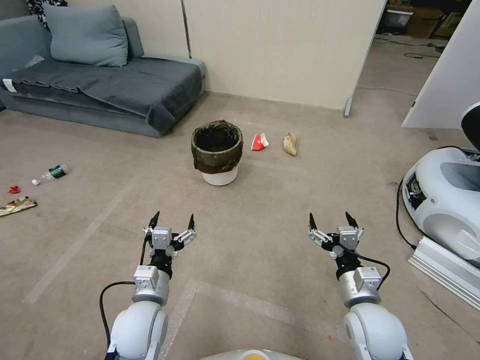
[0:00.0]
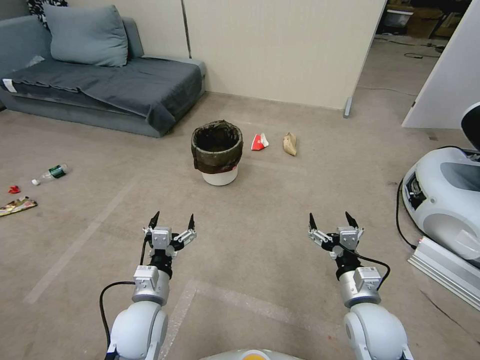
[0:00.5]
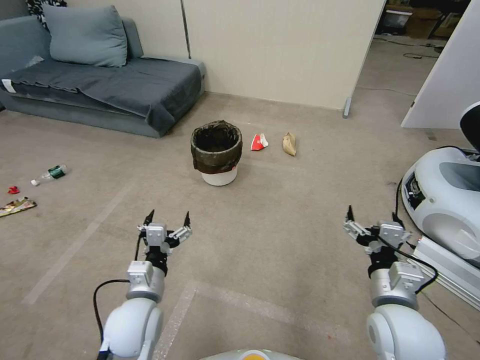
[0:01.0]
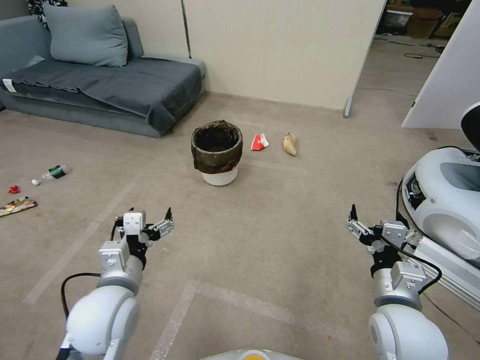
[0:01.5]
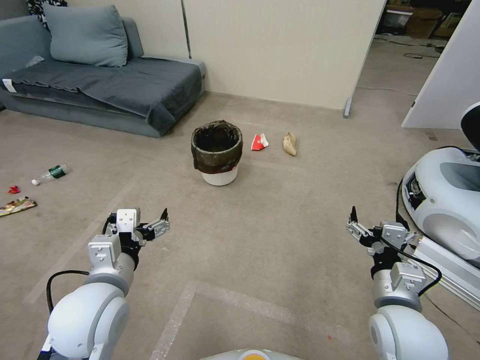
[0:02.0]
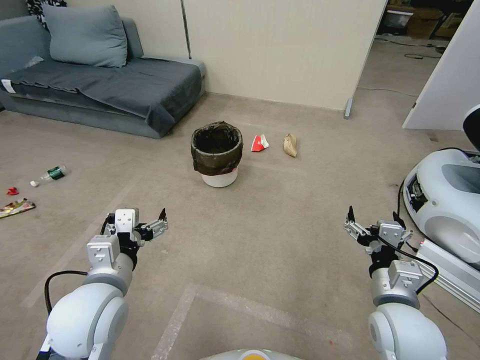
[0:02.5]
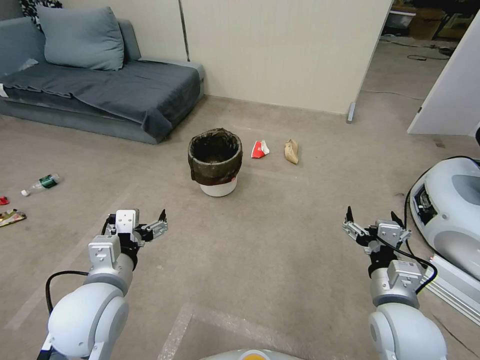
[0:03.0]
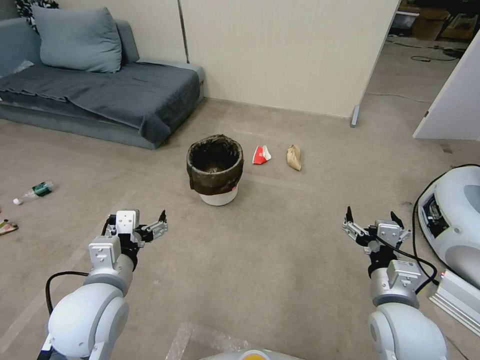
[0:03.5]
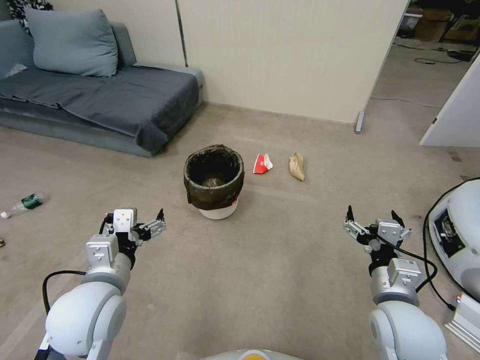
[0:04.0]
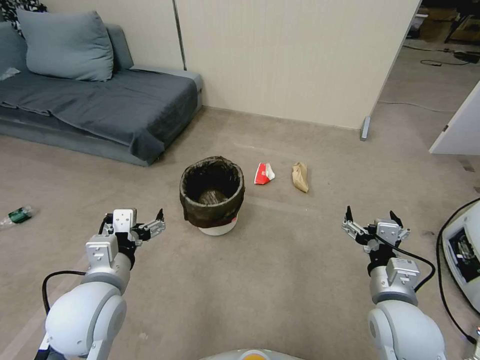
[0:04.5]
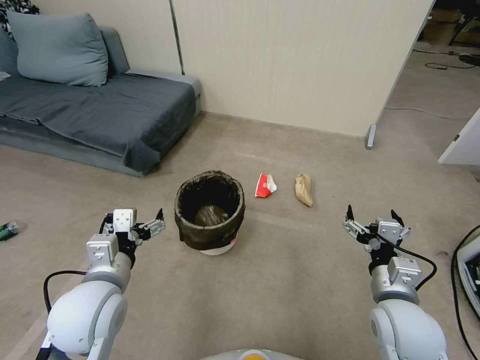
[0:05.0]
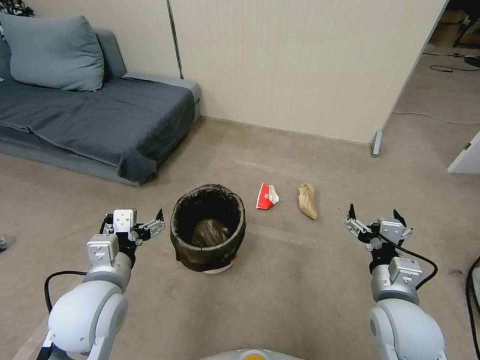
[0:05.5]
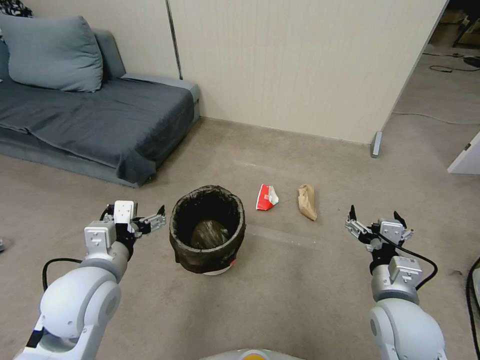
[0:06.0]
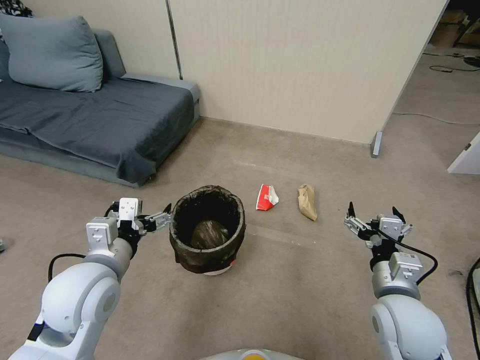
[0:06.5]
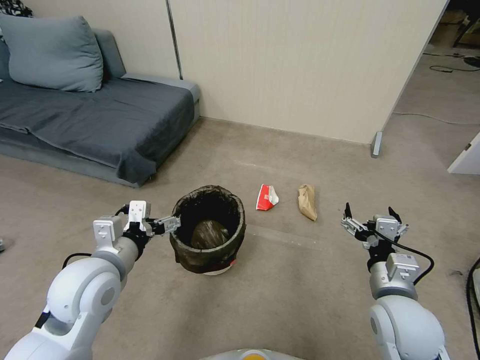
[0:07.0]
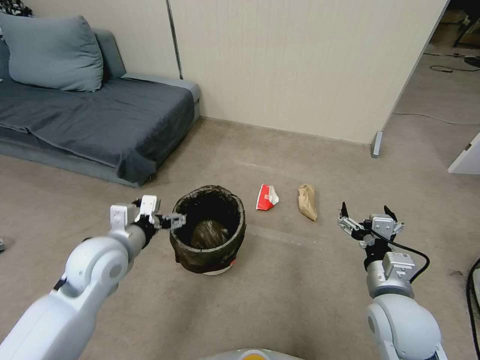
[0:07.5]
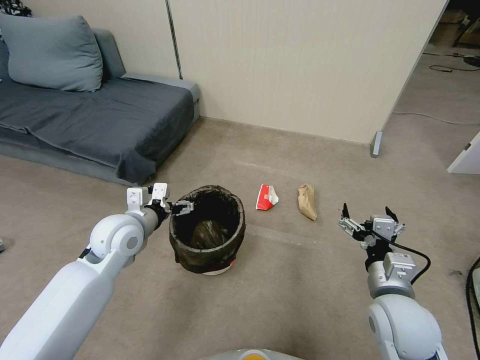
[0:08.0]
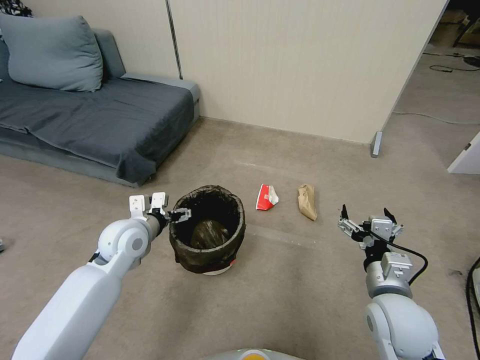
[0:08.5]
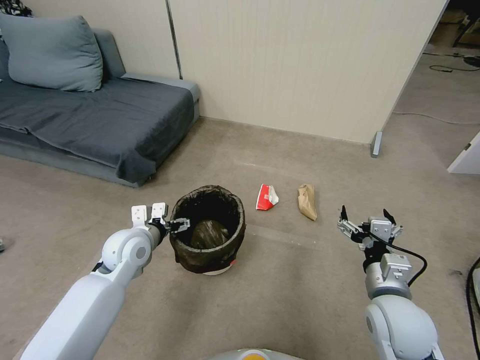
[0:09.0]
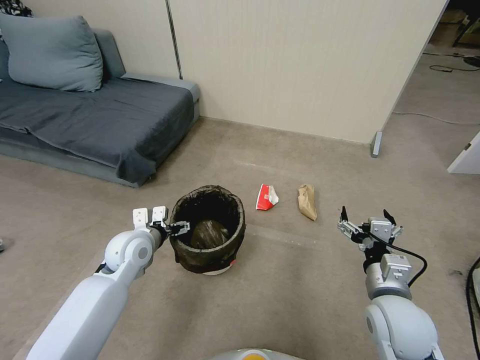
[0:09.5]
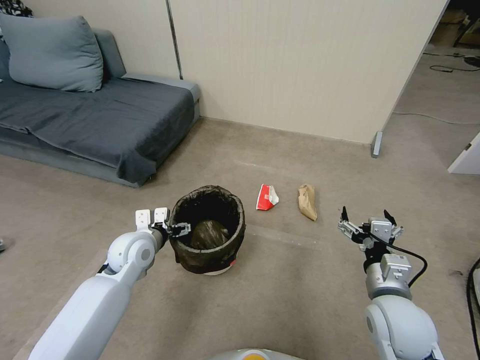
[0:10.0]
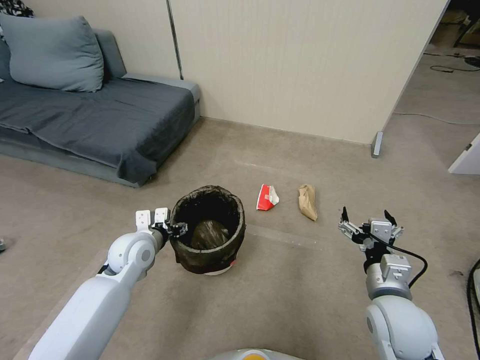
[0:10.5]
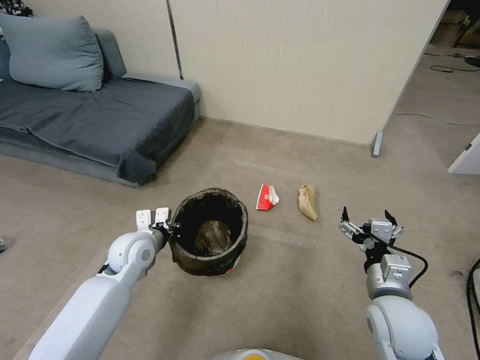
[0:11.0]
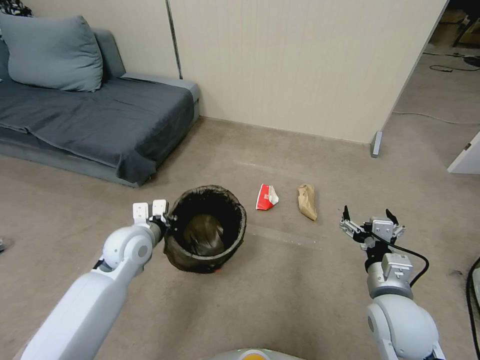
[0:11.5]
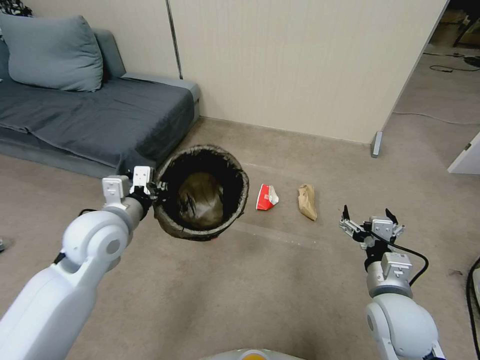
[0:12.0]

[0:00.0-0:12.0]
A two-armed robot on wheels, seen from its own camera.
Task of the whole recording: Pick up the trash bin, then pick up the garbage from the floor and place it into the trash bin.
0:06.0 to 0:08.0: The left gripper goes approximately 10 cm forward.
0:08.0 to 0:10.0: The left gripper is displaced downward by approximately 10 cm.
0:10.0 to 0:12.0: The left gripper is displaced upward by some 15 cm, and closes.

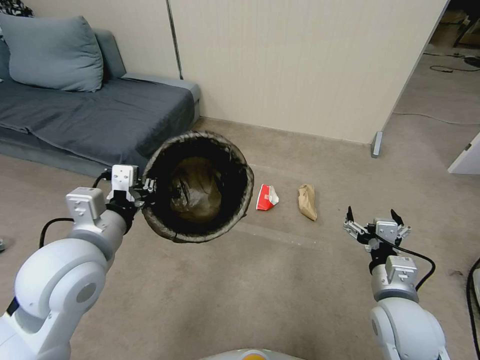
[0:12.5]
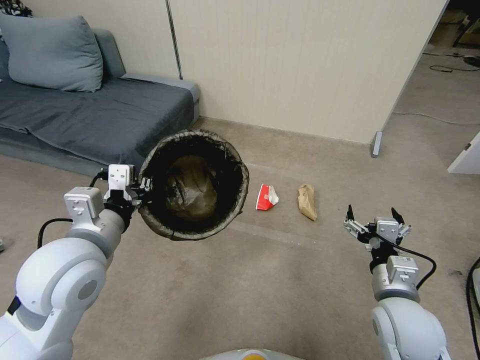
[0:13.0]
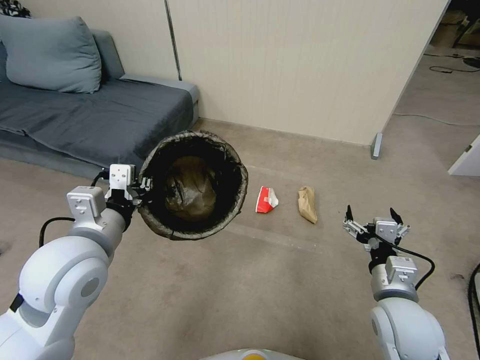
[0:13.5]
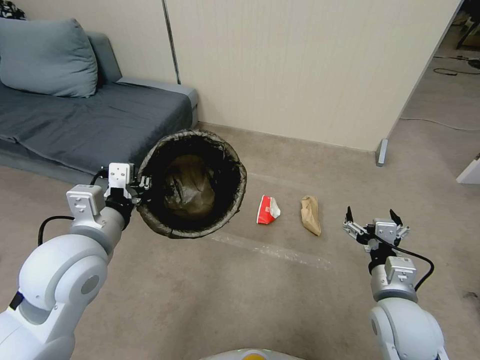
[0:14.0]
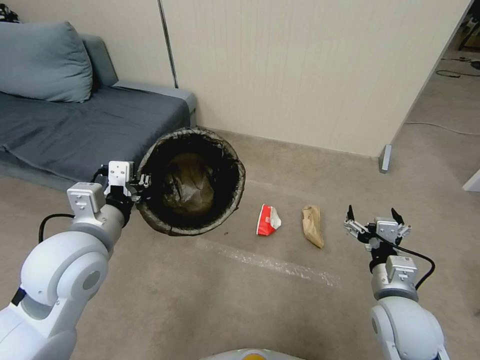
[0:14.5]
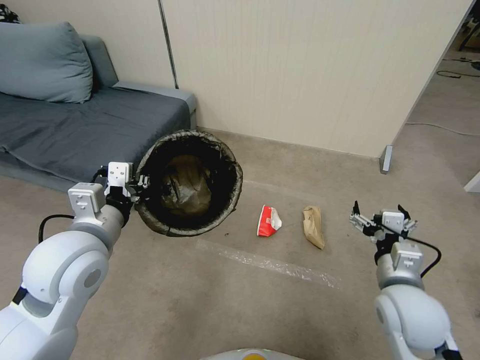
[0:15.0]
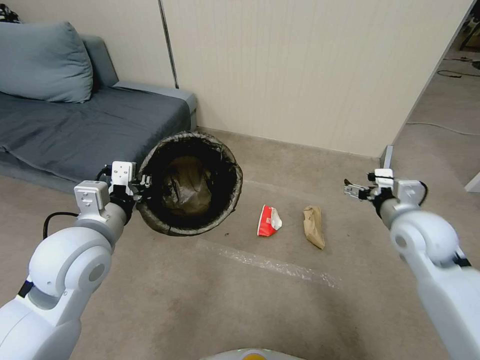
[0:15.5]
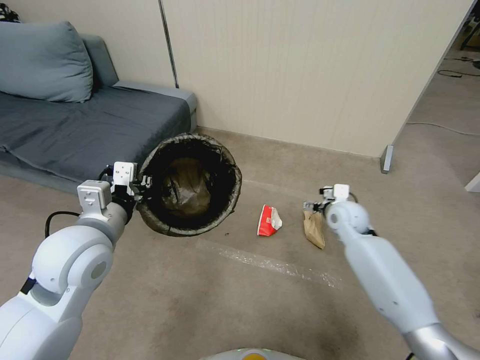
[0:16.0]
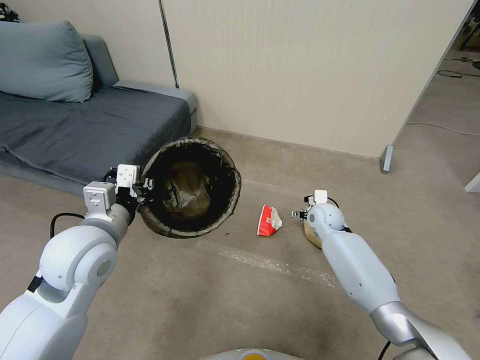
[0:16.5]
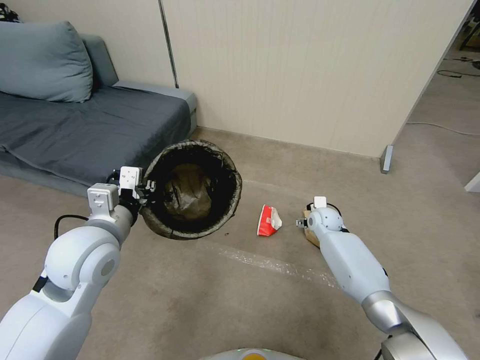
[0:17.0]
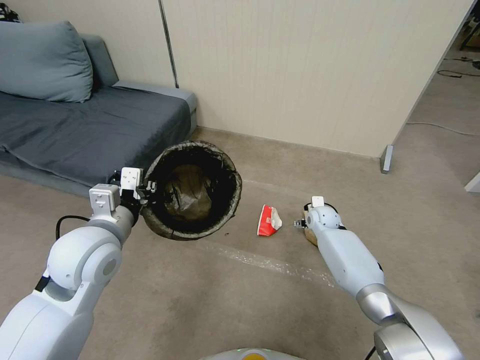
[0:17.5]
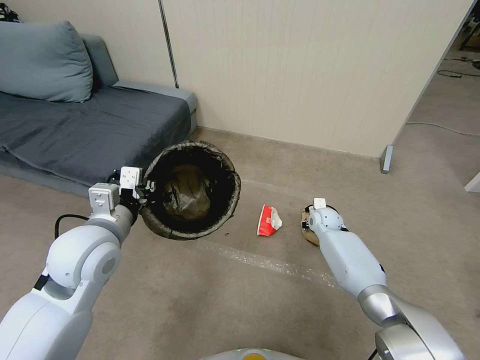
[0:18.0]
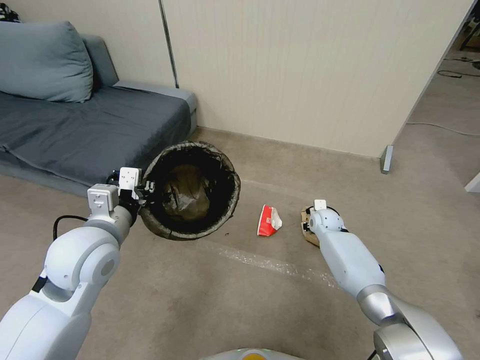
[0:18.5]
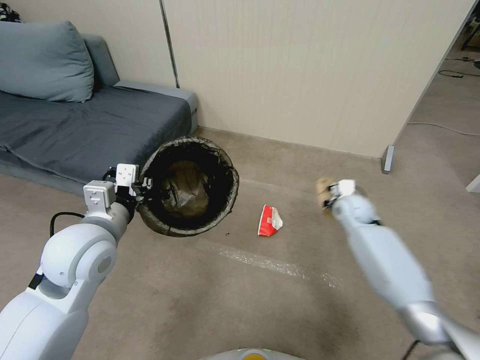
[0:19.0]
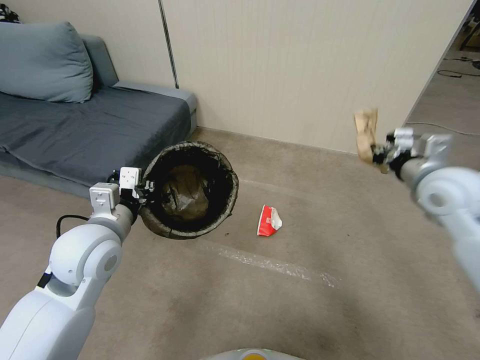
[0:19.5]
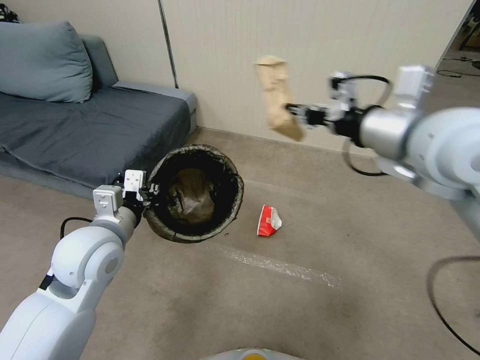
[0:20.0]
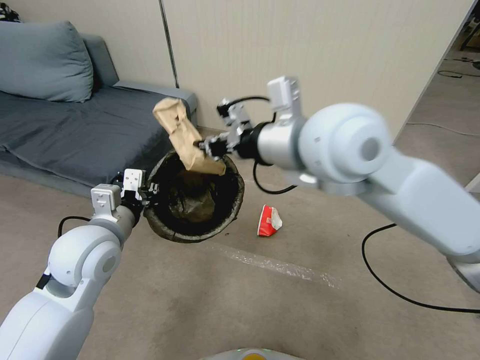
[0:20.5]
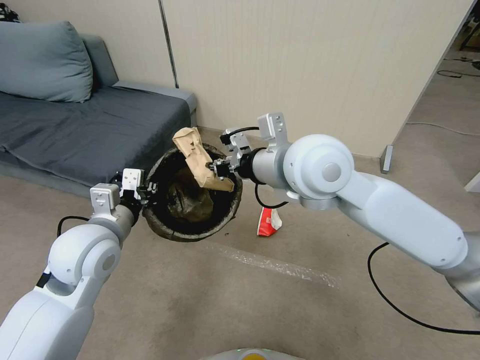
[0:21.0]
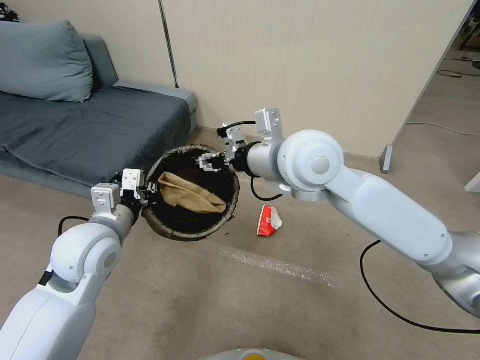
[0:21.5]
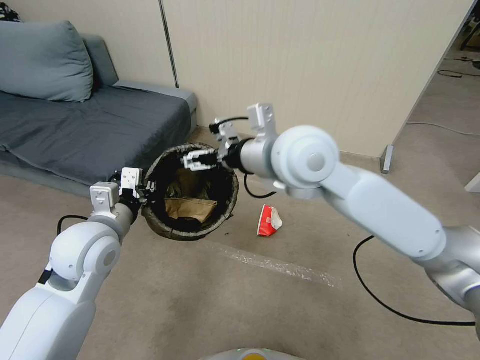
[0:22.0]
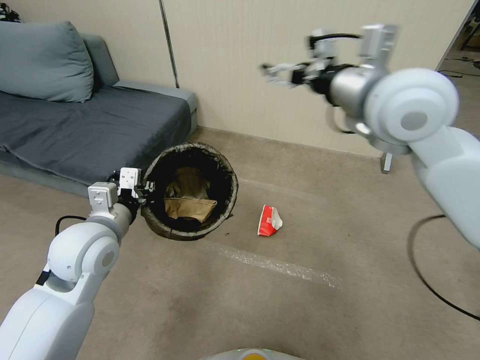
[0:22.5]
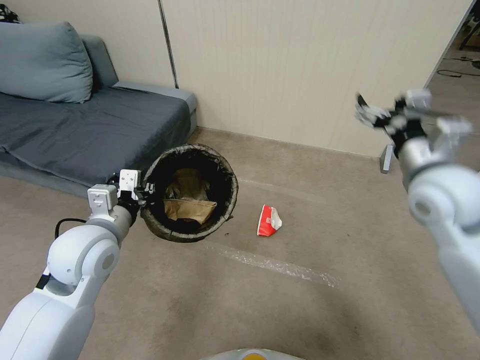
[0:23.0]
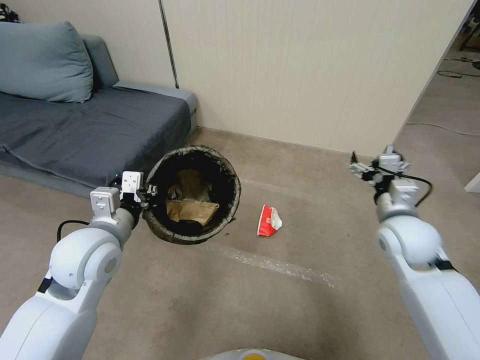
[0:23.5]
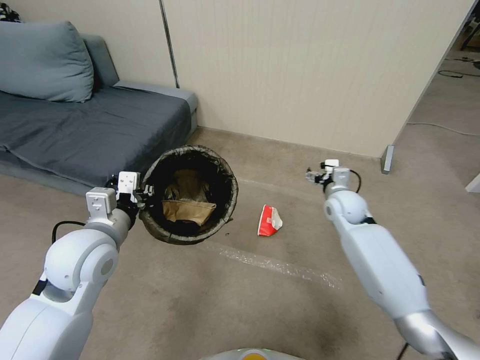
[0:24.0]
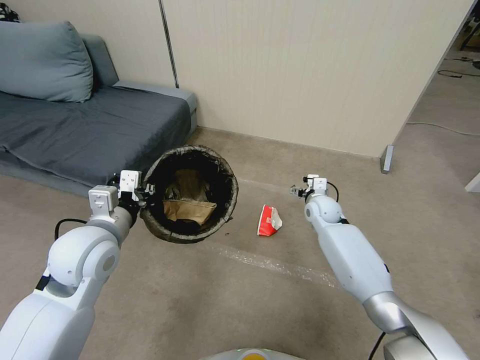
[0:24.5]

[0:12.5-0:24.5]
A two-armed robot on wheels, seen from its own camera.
Task of the whole recording: Pick up the trash bin, then pick up the garbage from the floor and place it into the trash bin.
0:12.5 to 0:14.5: The grippers move only a little.
0:14.5 to 0:16.5: The right gripper is displaced forward by some 30 cm.
0:16.5 to 0:18.5: The right gripper moves downward, roughly 5 cm, and closes its fingers.
0:18.5 to 0:20.5: The right gripper shifts about 50 cm upward.
0:20.5 to 0:22.5: The right gripper moves to the right and forward, approximately 10 cm, and opens its fingers.
0:22.5 to 0:24.5: The right gripper heads downward, covering approximately 40 cm.

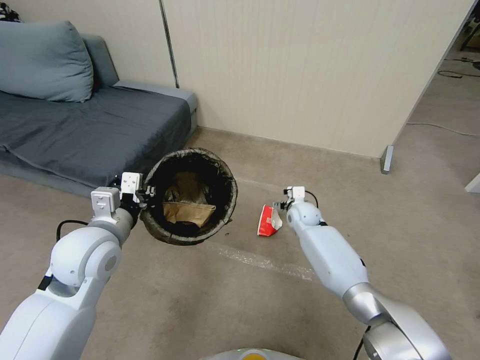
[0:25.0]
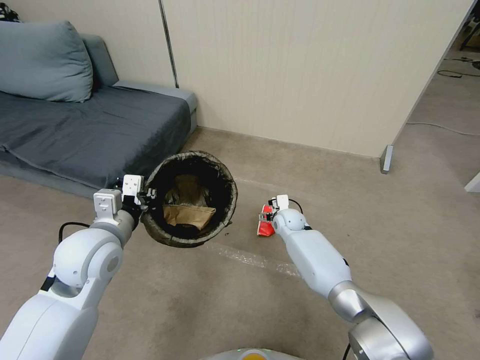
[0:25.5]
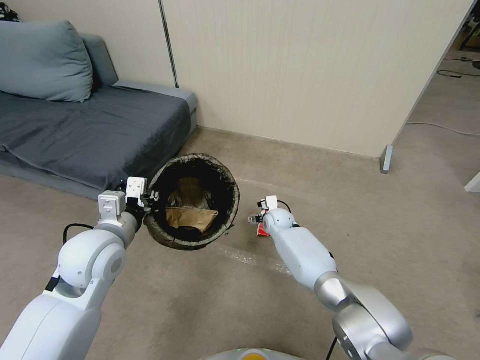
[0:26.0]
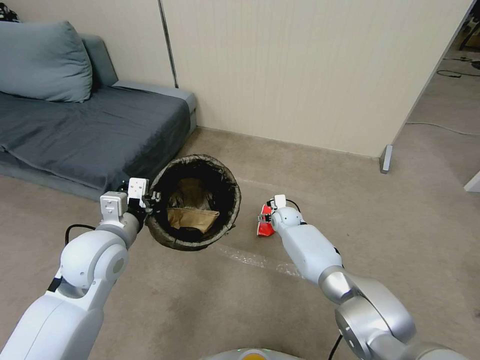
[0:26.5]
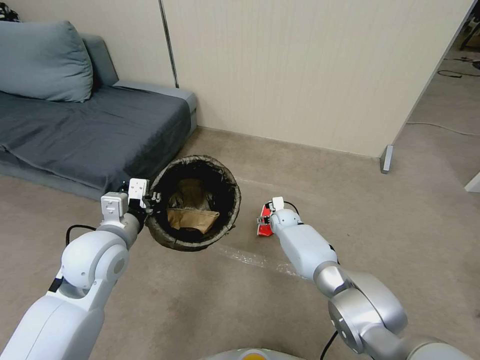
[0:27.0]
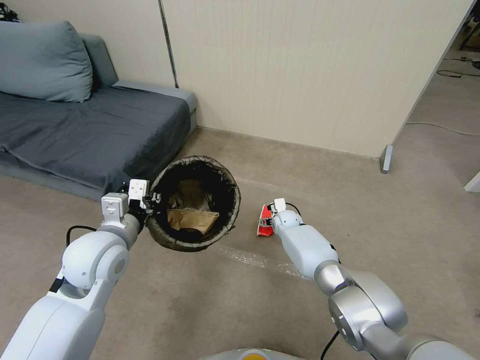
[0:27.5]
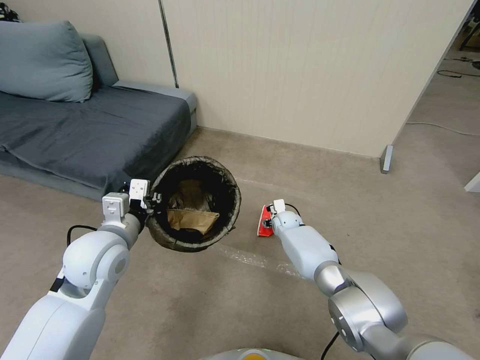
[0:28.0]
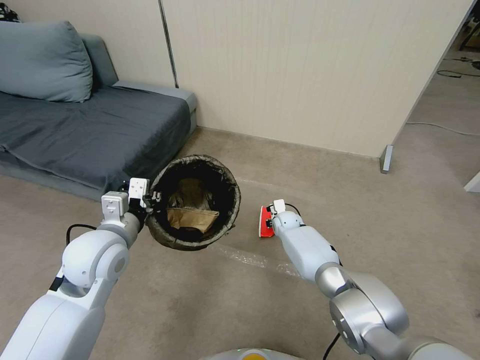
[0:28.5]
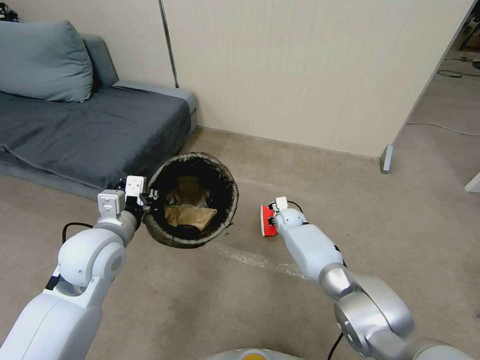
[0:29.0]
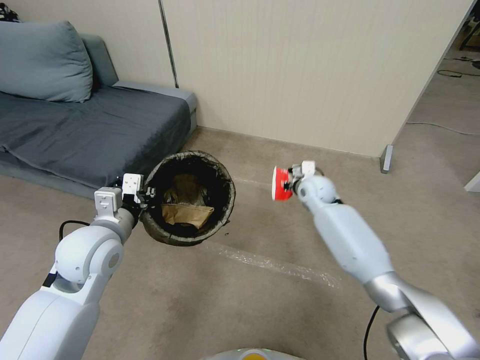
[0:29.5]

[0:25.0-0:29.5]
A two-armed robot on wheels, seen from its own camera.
Task of the whole recording: Pick up the trash bin, then pick up the garbage from the floor and place it into the trash bin.
0:25.0 to 0:27.0: The right gripper goes approximately 5 cm downward.
0:27.0 to 0:29.5: The right gripper travels upward and to the right by roughly 15 cm, and closes its fingers.
